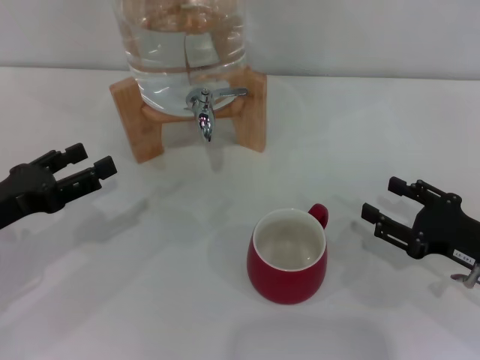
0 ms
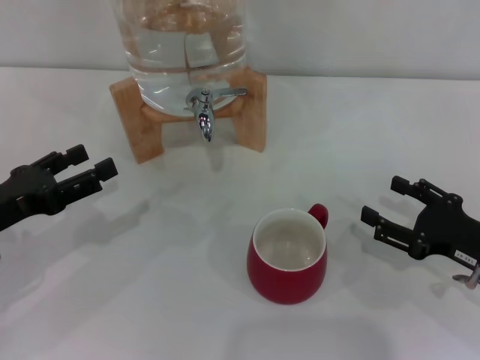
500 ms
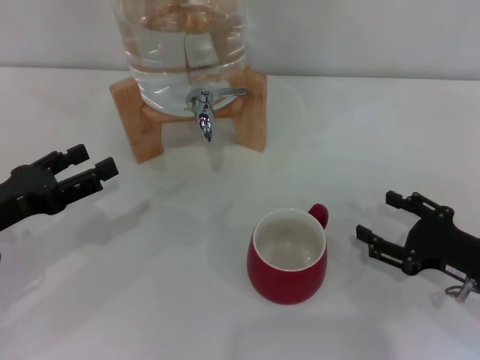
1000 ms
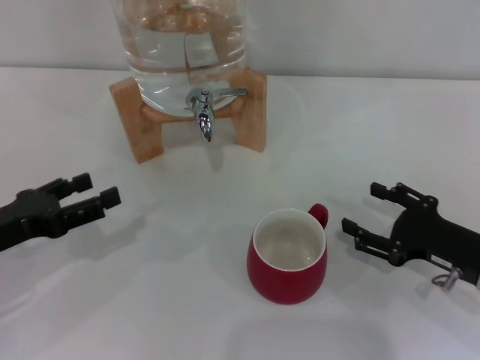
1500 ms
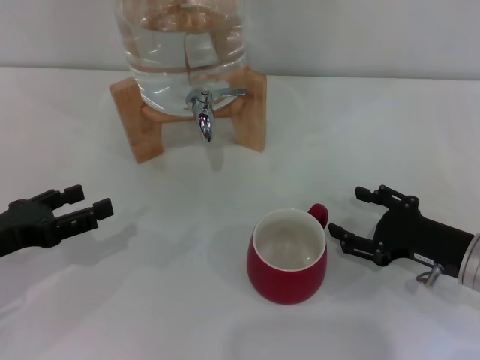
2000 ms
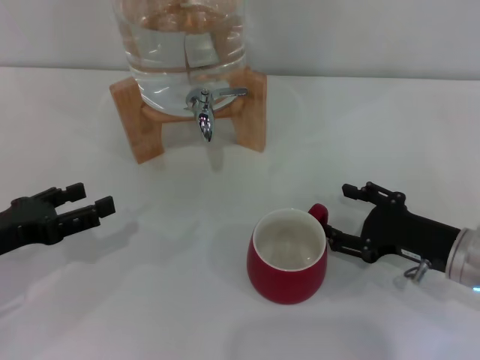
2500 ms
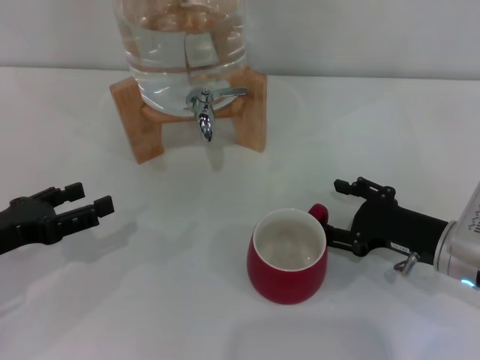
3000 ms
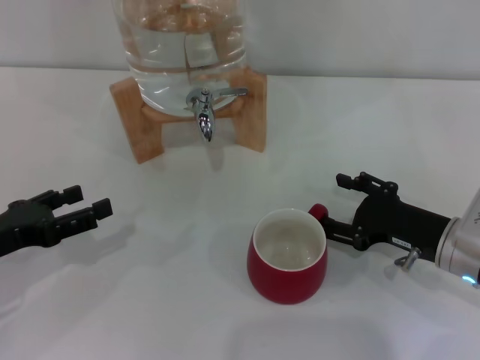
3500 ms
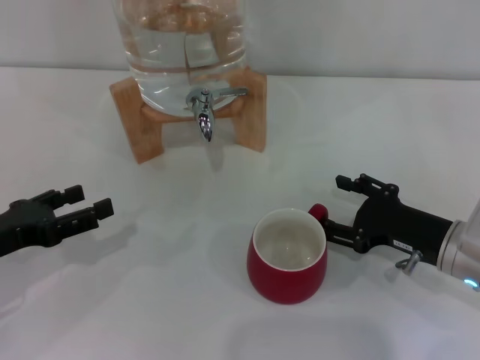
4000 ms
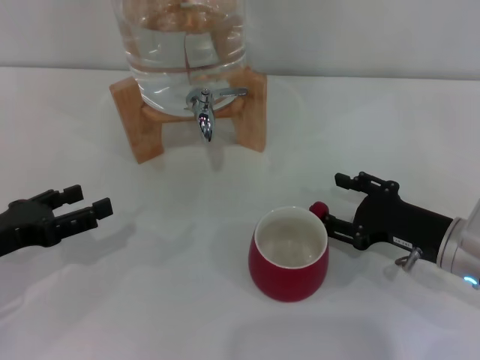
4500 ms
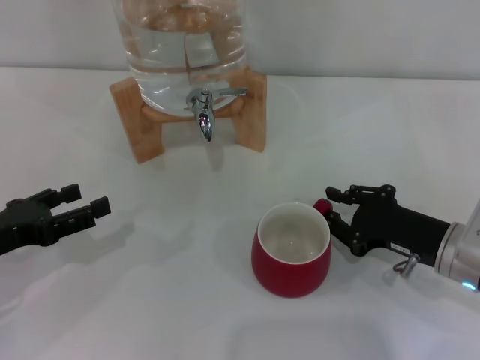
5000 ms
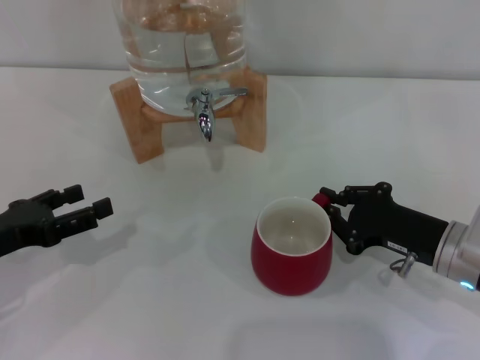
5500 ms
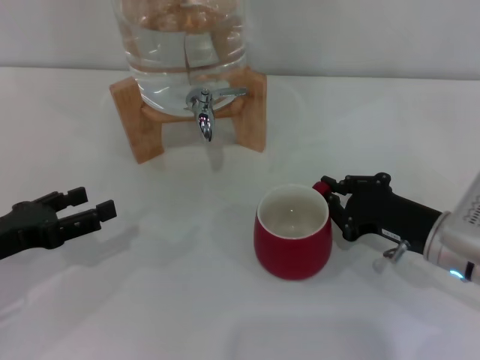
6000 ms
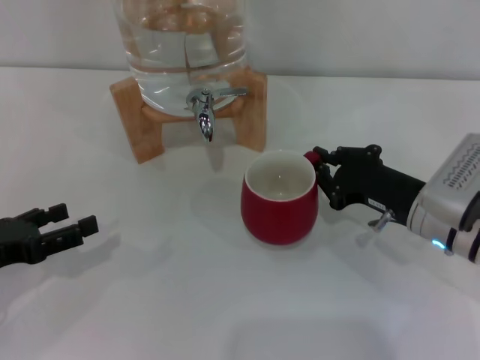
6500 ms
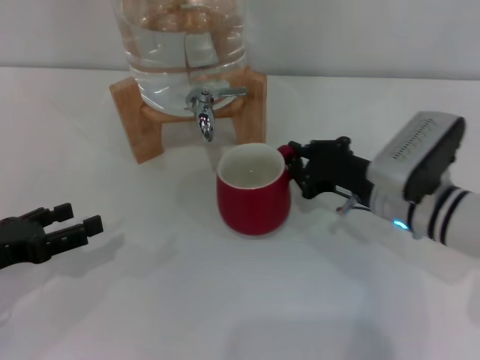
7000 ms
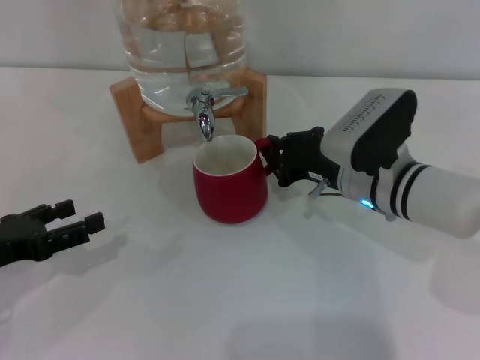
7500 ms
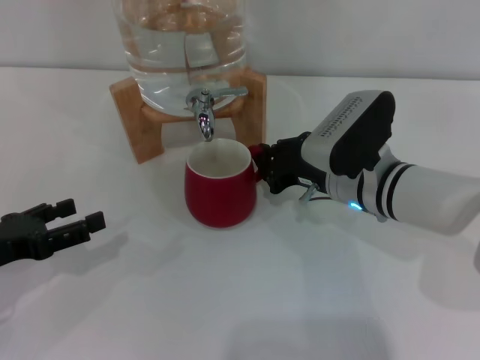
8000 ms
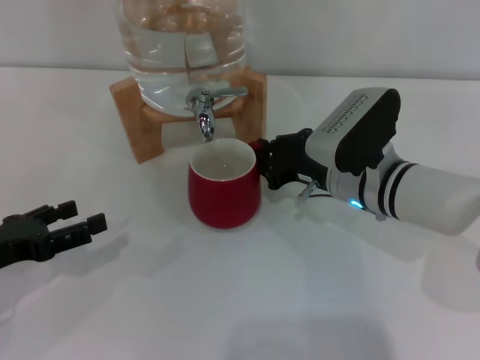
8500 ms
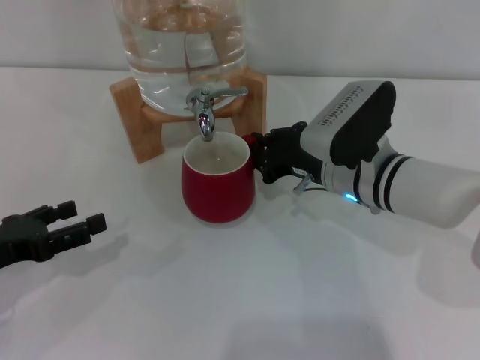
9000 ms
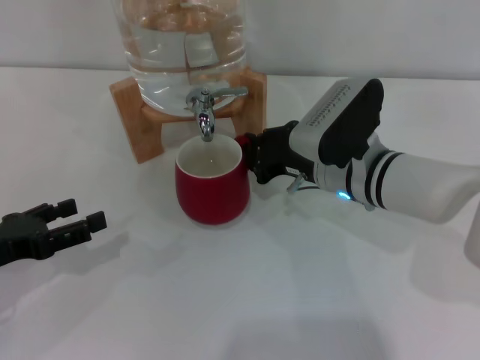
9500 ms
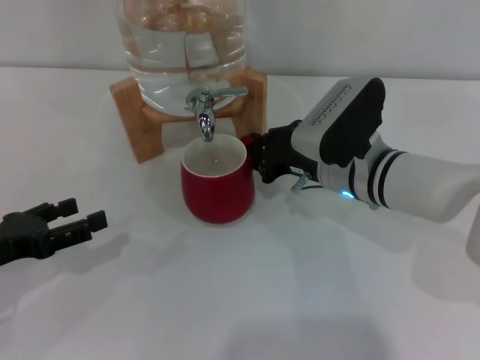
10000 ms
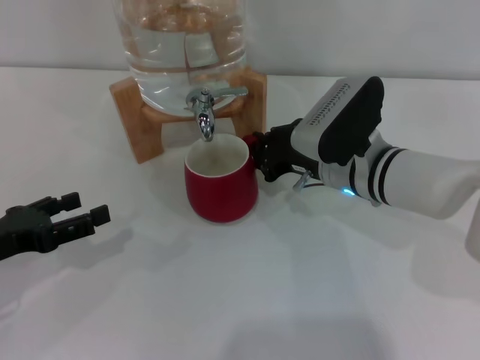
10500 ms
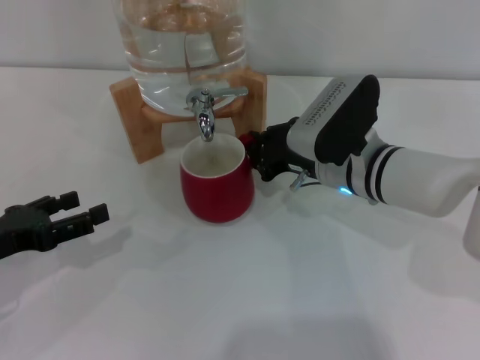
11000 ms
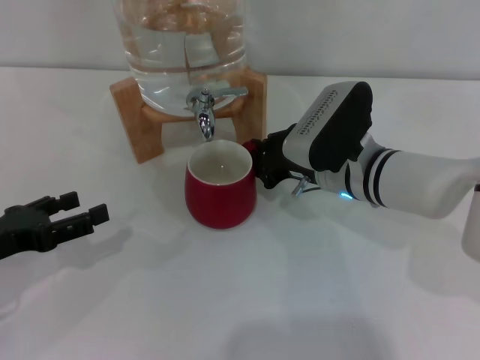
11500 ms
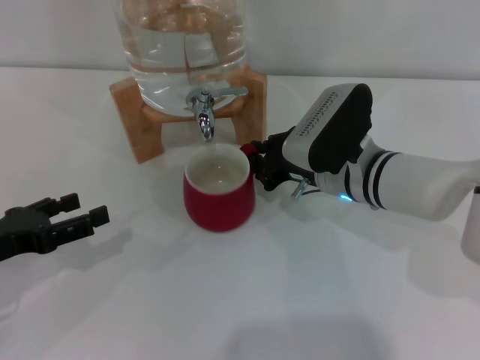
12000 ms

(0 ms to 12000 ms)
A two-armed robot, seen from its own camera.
Task of the whole recording: the right gripper pick up the red cup and place it horizontally under the faucet, the left gripper turn on the faucet to fill the cup, and then turn off the faucet.
0 ms - 2000 ms: The grippers make only small movements.
2000 ms - 4000 ms: The grippers make only small movements.
4000 ms - 6000 ms: The right gripper closes its fingers.
6000 ms - 8000 ms: The right gripper heads to the left and forward, covering some 10 cm.
8000 ms - 12000 ms: The grippers stay close to where they were, moving slightly.

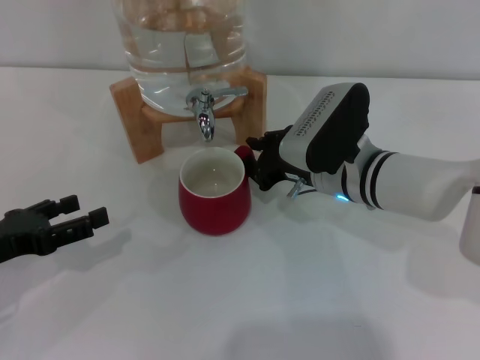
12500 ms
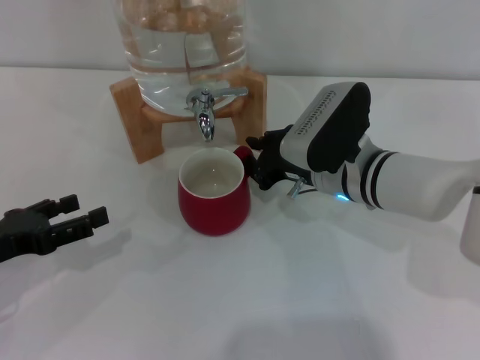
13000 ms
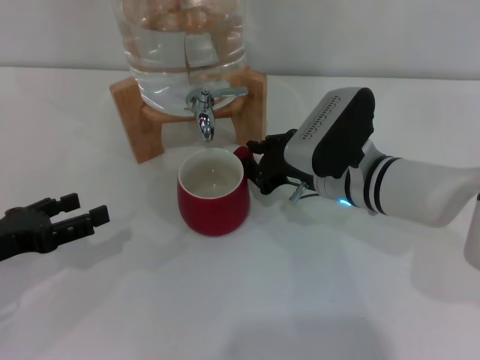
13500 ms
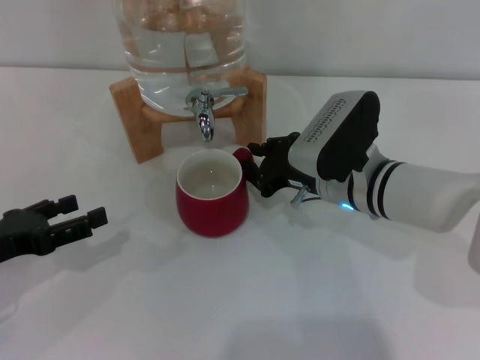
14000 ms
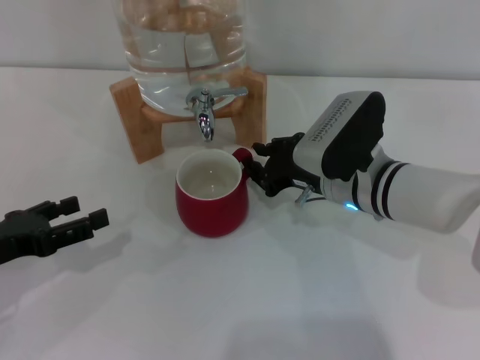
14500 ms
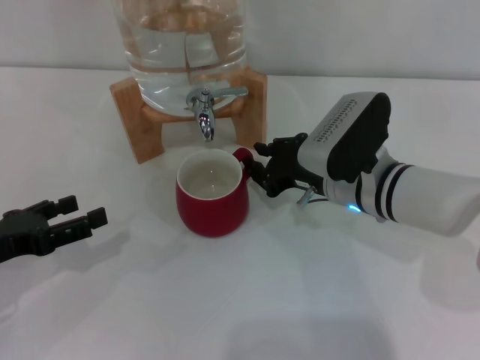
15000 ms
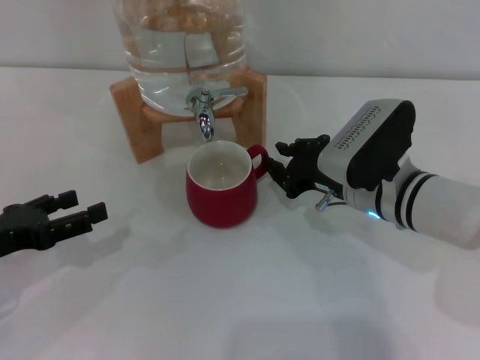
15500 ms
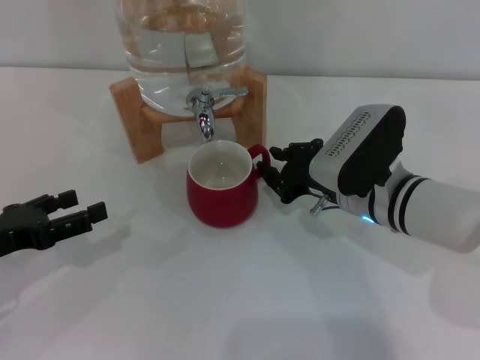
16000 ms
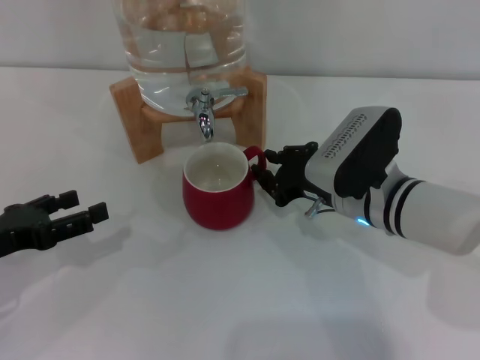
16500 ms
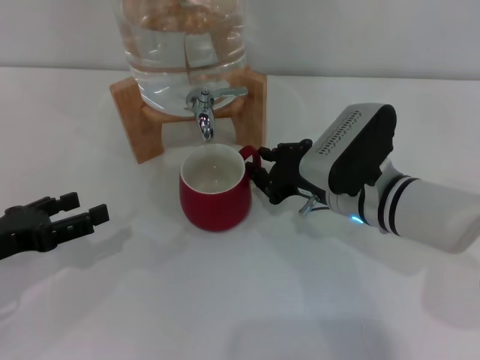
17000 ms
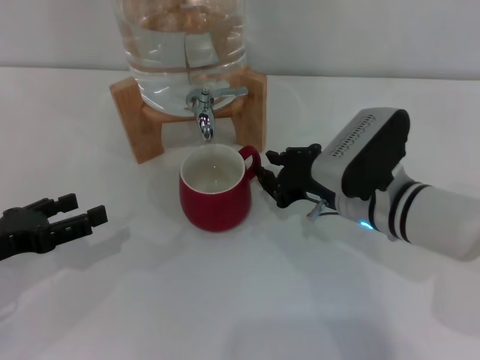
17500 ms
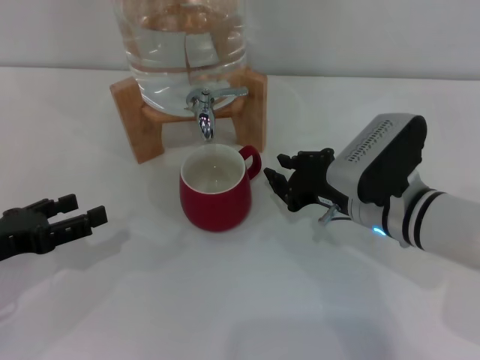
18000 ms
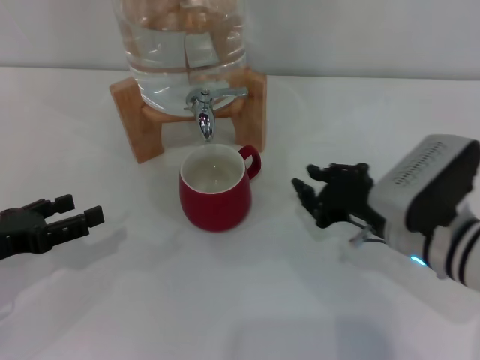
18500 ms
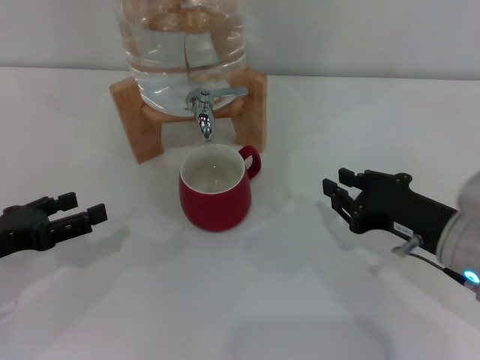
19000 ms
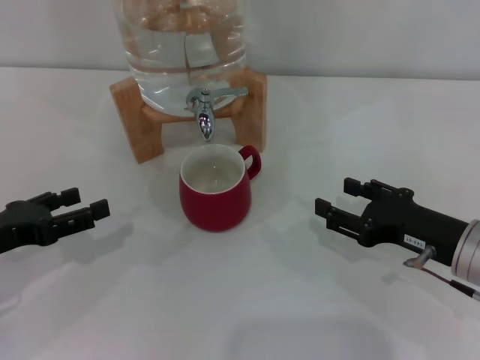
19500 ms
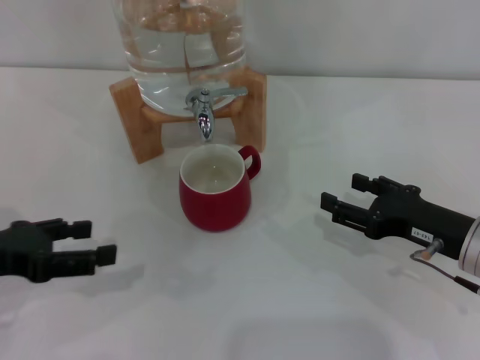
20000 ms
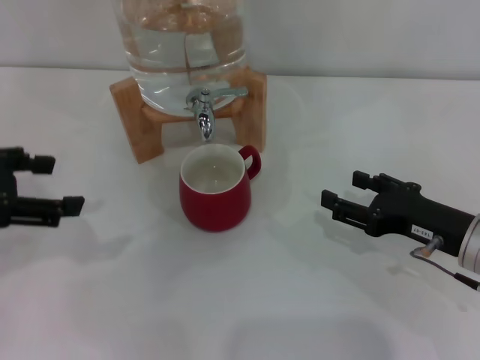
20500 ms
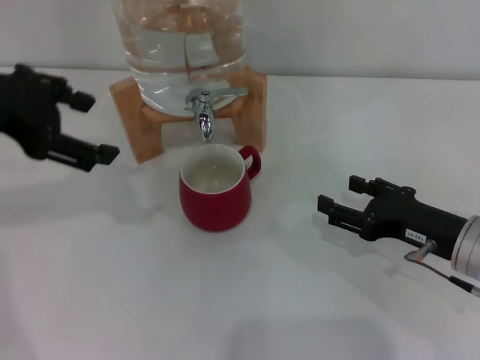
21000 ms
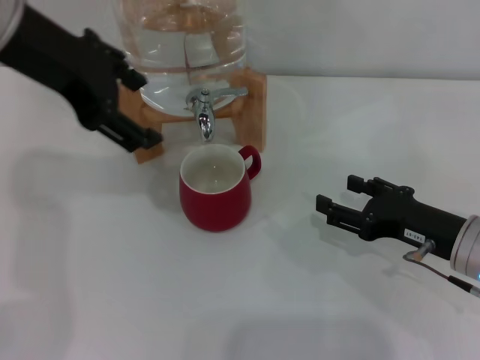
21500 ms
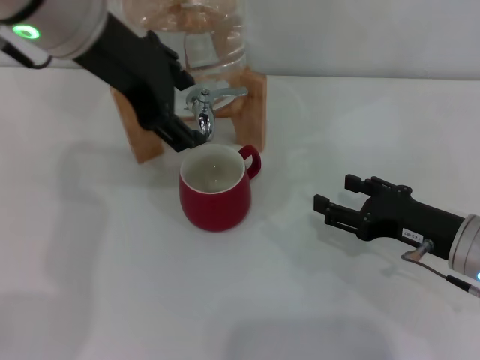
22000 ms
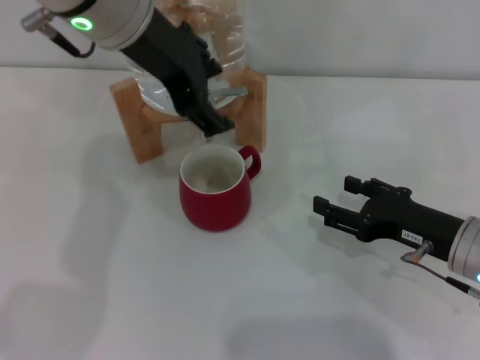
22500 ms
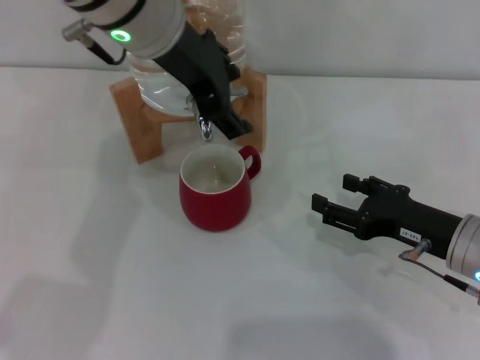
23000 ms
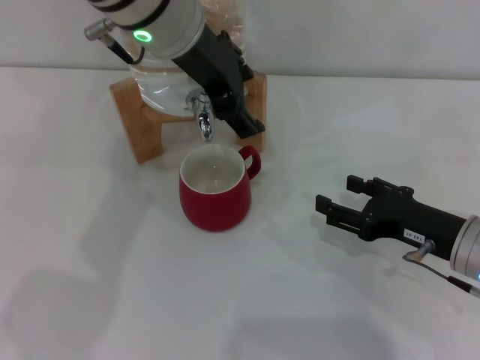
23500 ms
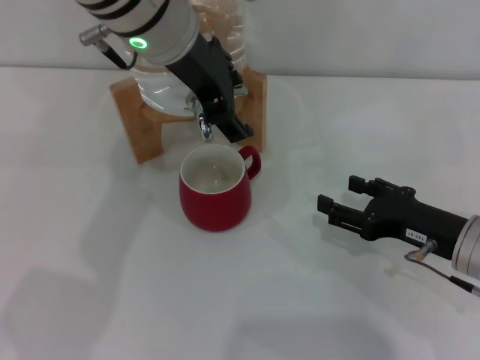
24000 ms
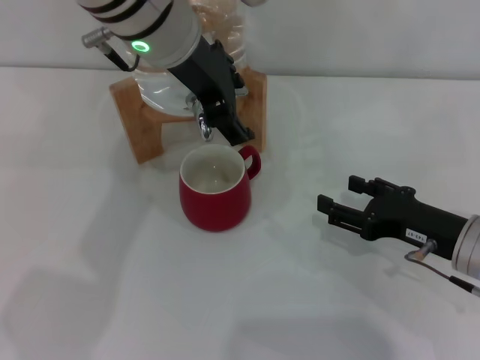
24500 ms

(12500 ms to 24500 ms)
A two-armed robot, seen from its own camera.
Task of the whole recording: the right gripper pick up the red cup and place it horizontally under the faucet, the left gripper turn on the faucet to fill the cup, and then turn off the faucet.
Step, 12500 ms - 18000 ms: Move the cup beneath the water dispenser nozzle with the right gripper.
12500 ms - 16500 ms: The grippers make only small movements.
16500 ms - 18500 ms: The right gripper travels backward by approximately 5 cm.
18500 ms - 20500 ms: The right gripper is displaced to the right by about 5 cm, and opens, while the left gripper heads upward, covering roughly 15 cm.
20500 ms - 22500 ms: The left gripper is displaced to the right and forward by some 25 cm.
22500 ms - 24500 ms: The left gripper ends up some 5 cm from where it was.

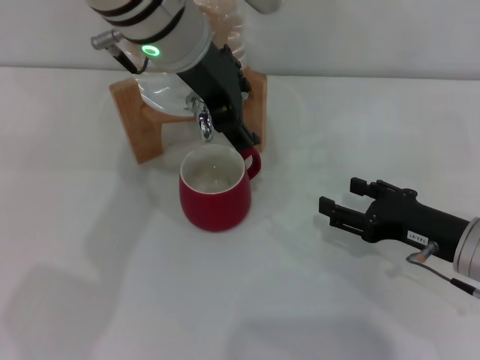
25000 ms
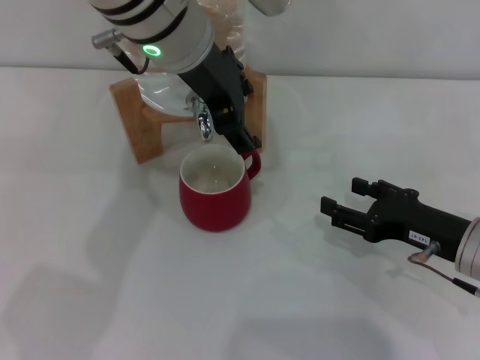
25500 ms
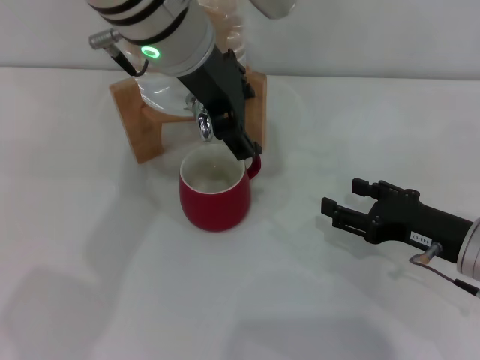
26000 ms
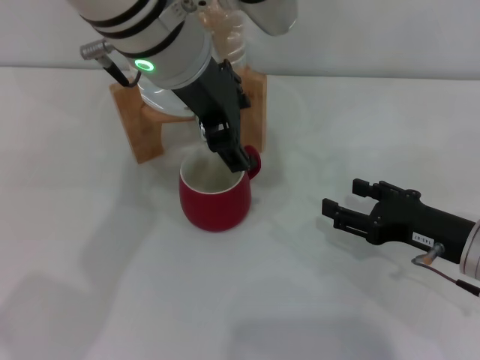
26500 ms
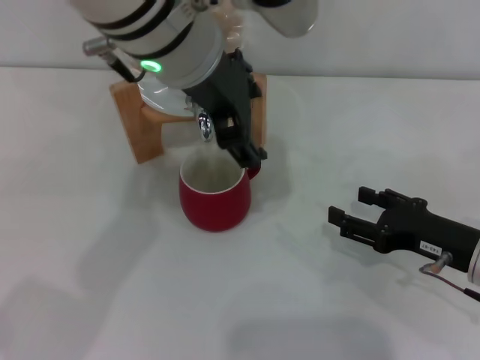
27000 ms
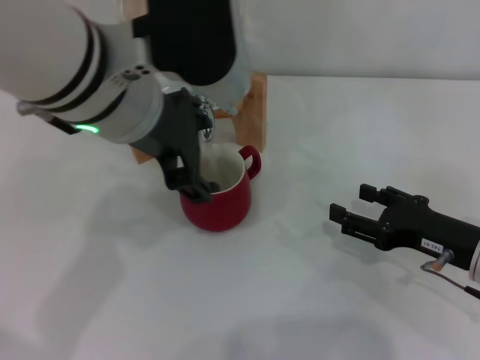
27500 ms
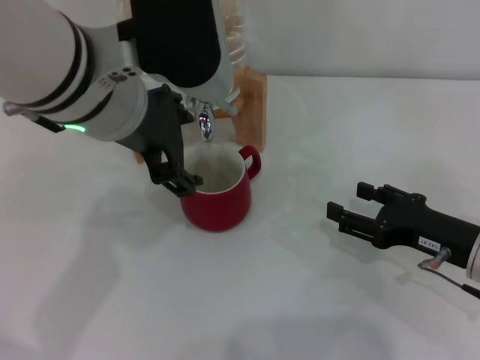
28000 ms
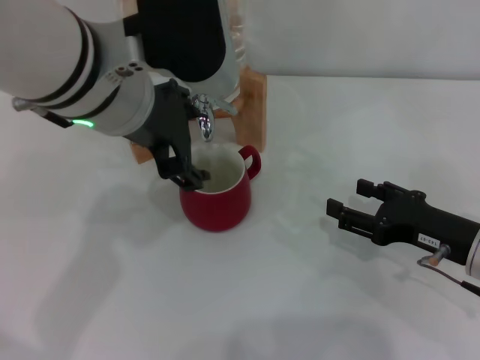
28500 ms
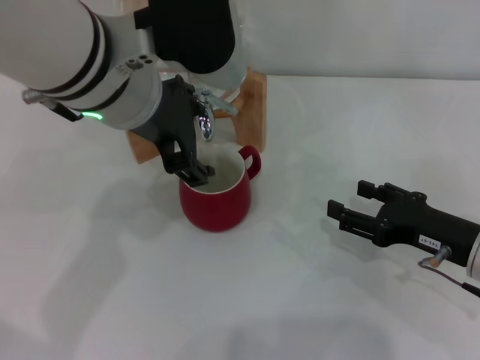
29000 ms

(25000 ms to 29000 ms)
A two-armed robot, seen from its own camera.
Task of the whole recording: the right gripper pick up the red cup and place it horizontally under the faucet, the left gripper turn on the faucet to fill the cup, and then turn off the faucet.
Step, 25000 ms - 27500 ms: Open the dispenser valve and fill the cup with water with the left gripper.
25000 ms - 27000 ms: The left gripper is displaced backward by some 5 cm.
27000 ms - 29000 ms: The left gripper changes place by about 5 cm.
